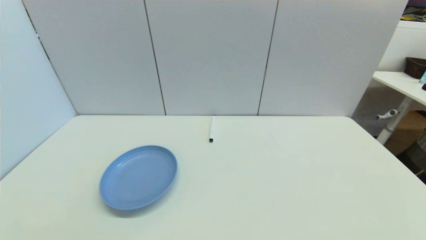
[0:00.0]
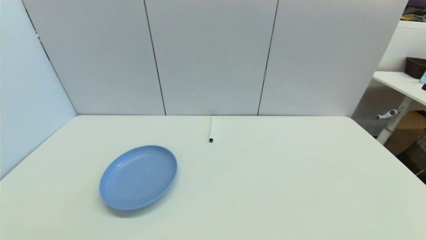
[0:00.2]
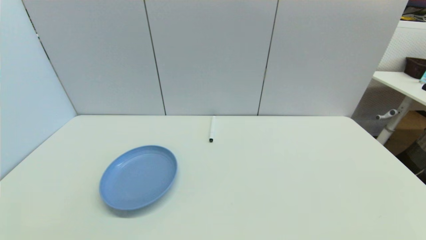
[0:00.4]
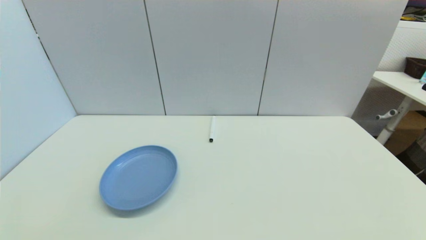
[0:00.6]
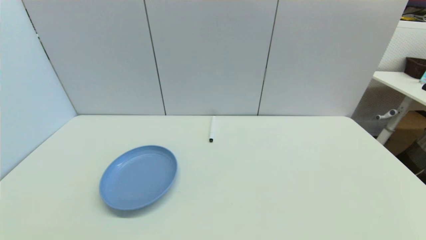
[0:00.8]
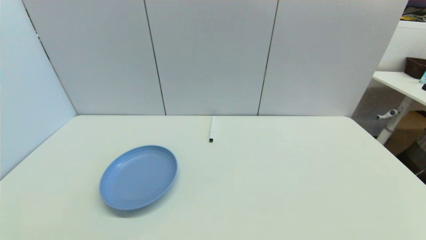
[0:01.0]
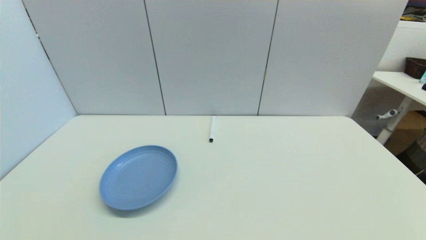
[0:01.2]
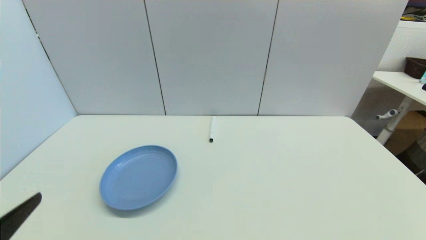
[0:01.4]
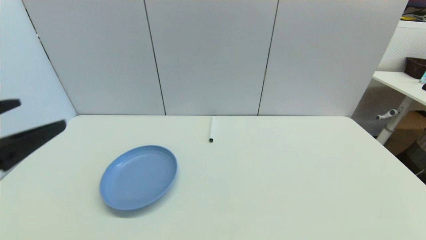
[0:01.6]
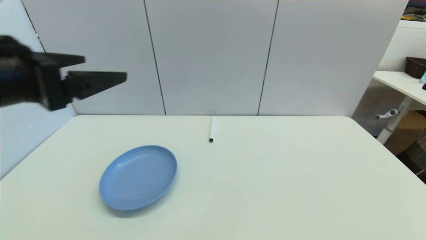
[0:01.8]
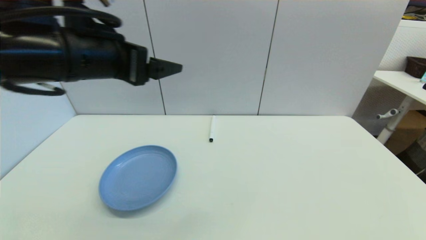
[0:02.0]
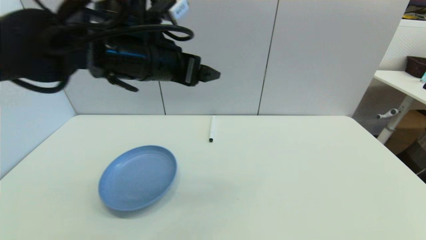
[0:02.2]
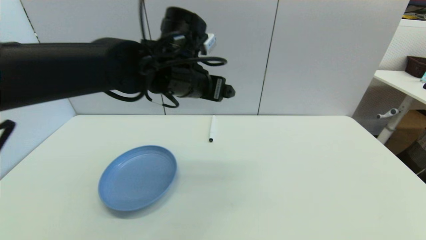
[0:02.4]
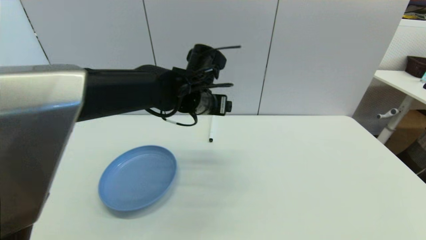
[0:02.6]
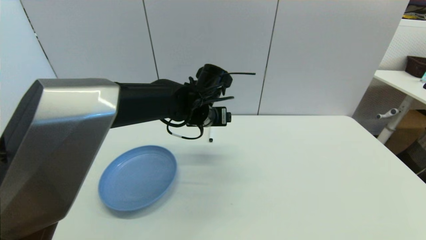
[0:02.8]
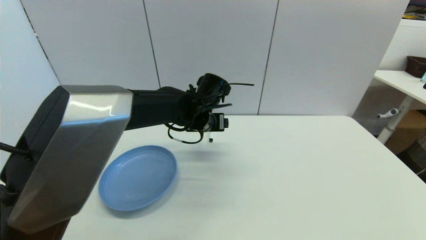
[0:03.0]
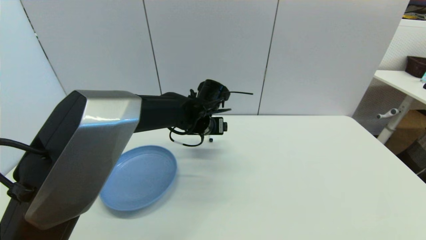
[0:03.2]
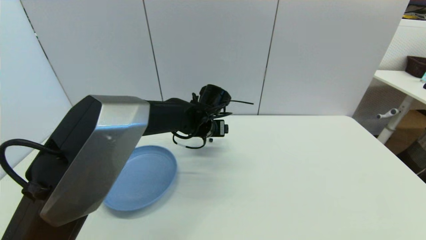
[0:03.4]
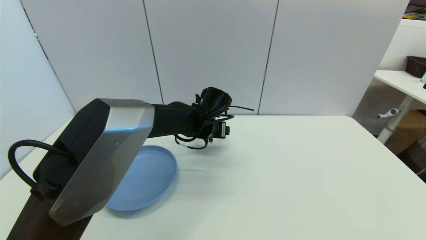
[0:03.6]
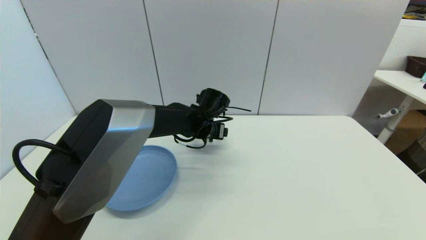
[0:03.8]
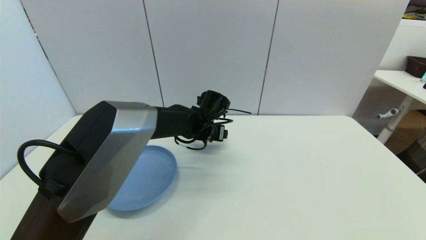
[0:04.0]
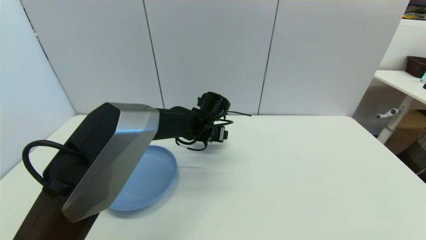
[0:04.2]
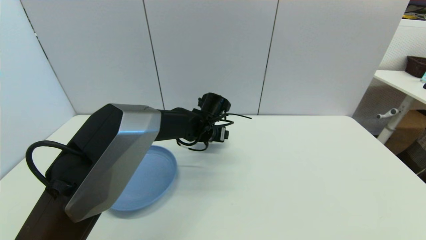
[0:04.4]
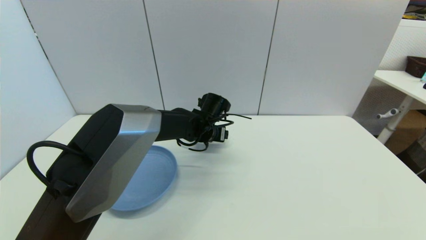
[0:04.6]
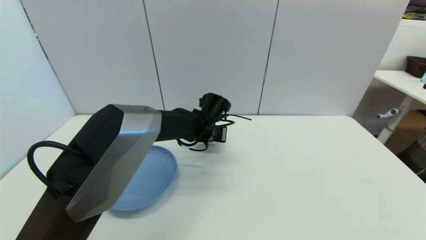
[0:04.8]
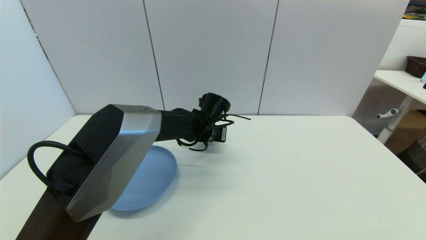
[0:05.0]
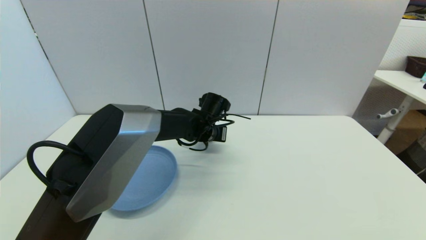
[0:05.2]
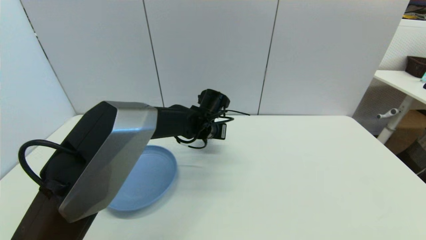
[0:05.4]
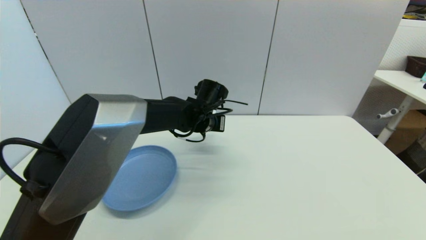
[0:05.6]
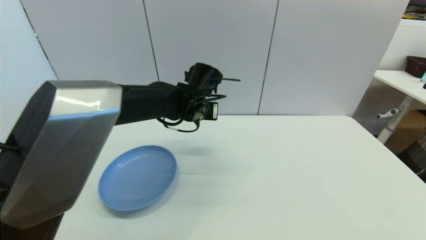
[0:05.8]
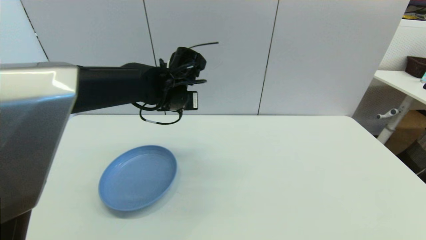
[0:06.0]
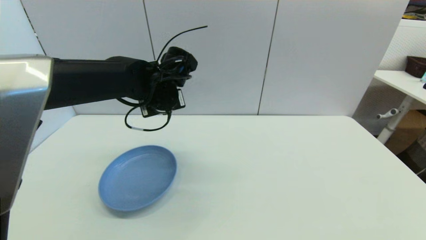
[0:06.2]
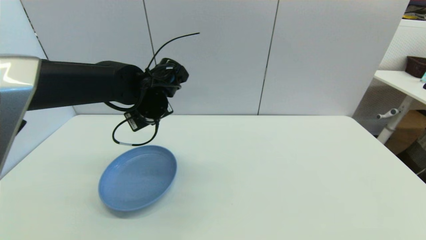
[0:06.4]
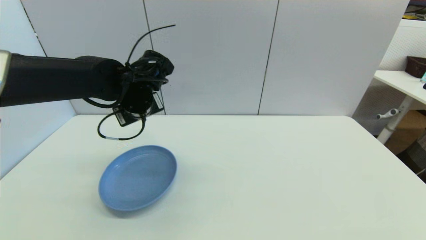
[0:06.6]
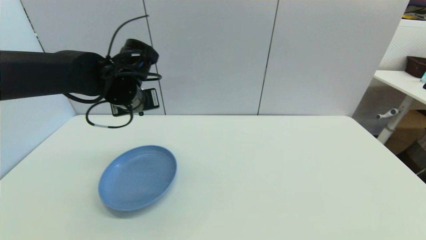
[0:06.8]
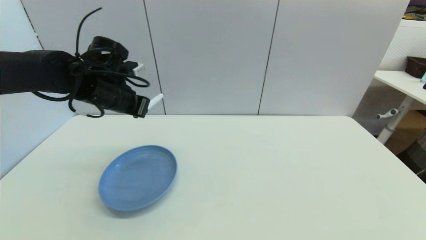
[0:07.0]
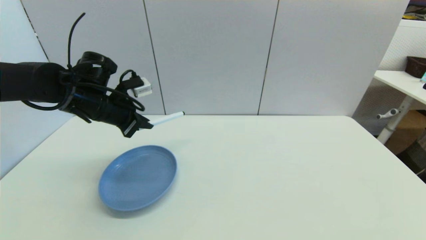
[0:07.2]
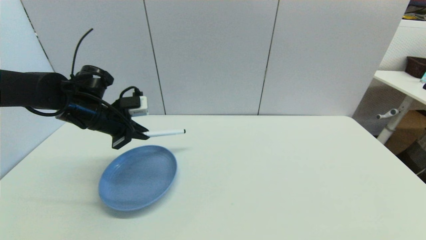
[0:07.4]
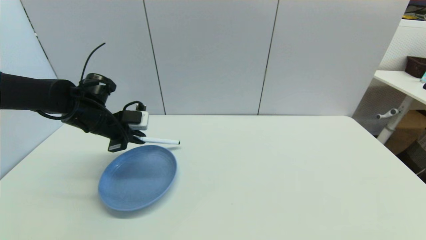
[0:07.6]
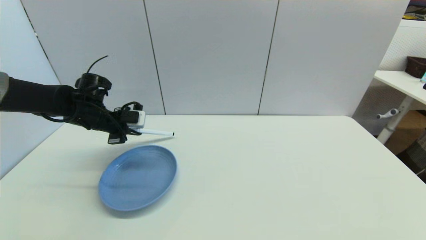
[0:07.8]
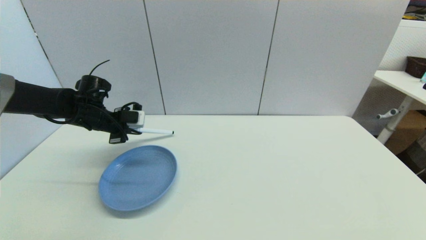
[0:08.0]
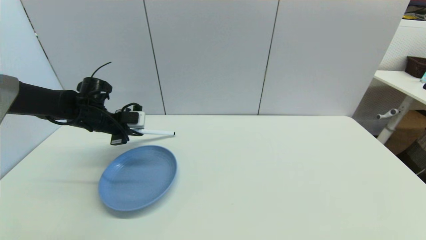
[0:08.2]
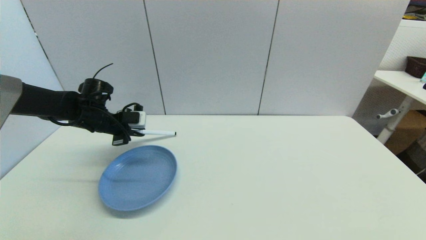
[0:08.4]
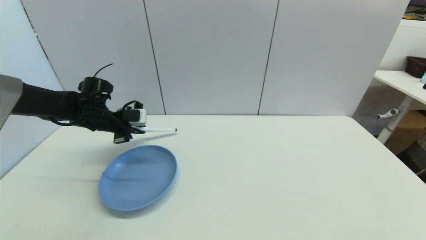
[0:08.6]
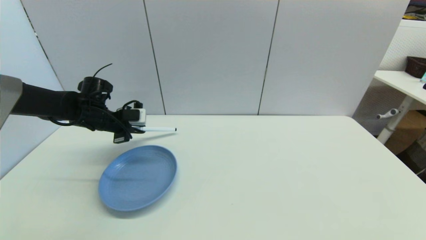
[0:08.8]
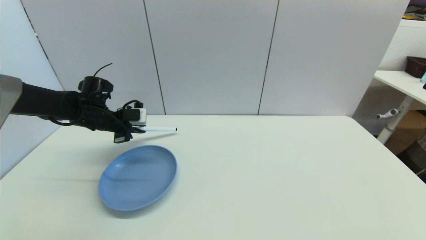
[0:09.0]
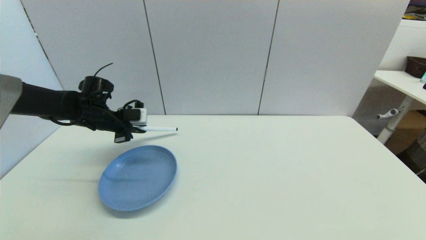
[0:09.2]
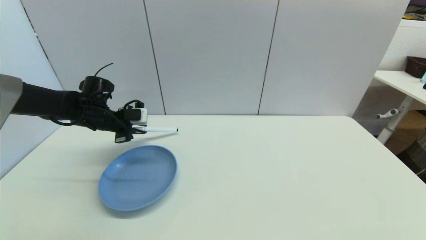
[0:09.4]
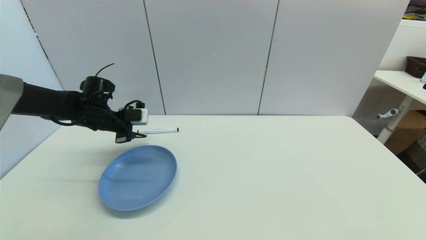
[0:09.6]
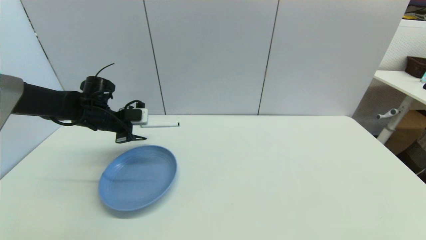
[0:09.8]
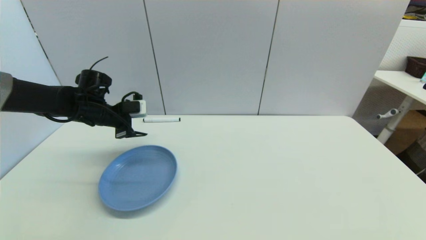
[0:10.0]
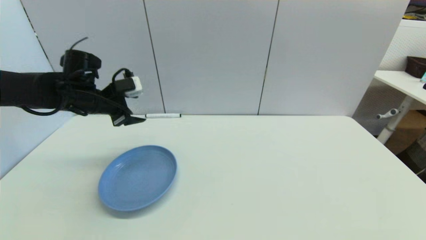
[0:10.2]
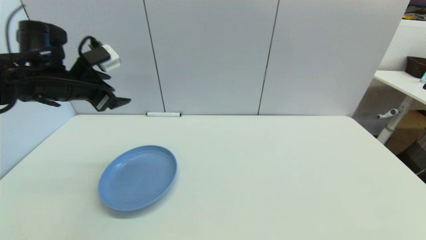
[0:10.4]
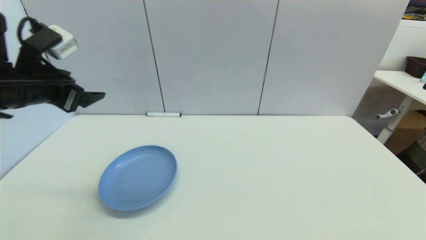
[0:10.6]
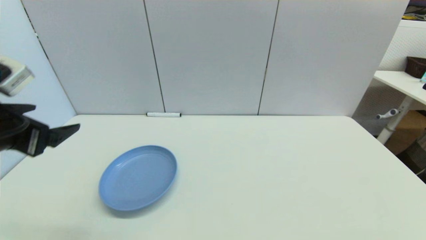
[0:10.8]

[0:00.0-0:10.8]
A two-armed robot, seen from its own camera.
Task of the whole recording: put the black marker in the designated position.
Step, 0:01.4 to 0:05.2: Grasp the Marker pen with left gripper.
Step, 0:05.4 to 0:09.4: Place the Marker pen on the table with left gripper.
0:00.0 to 0:01.6: The left gripper travels upward and forward by roughly 25 cm.
0:01.6 to 0:03.0: The left gripper is displaced forward and to the right by some 40 cm.
0:03.0 to 0:04.6: The left gripper heads downward, covering about 5 cm.
0:04.6 to 0:06.2: The left gripper goes roughly 15 cm upward and to the left, and closes.
0:06.2 to 0:07.8: The left gripper heads to the left, covering about 20 cm.
0:07.8 to 0:09.2: The grippers stay close to where they were, moving slightly.
0:09.2 to 0:10.8: The left gripper goes about 25 cm backward, and opens its fingers.

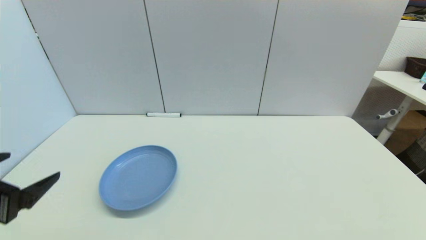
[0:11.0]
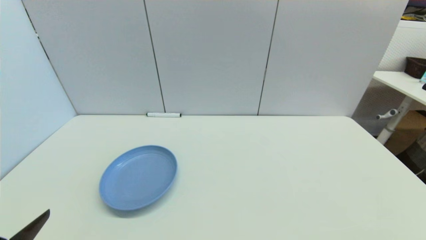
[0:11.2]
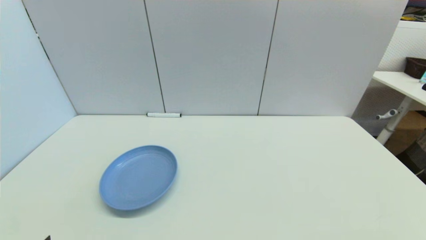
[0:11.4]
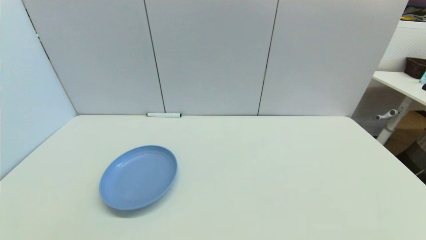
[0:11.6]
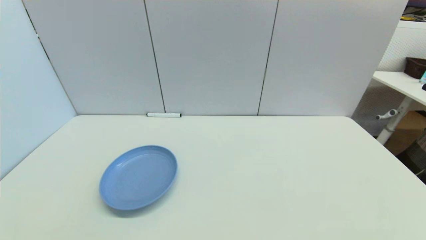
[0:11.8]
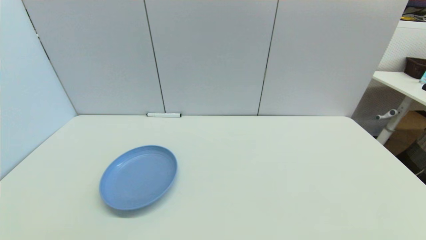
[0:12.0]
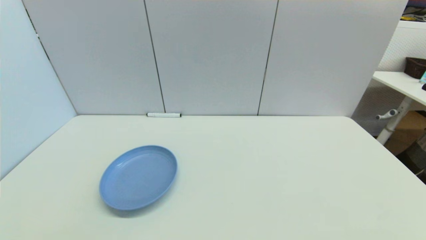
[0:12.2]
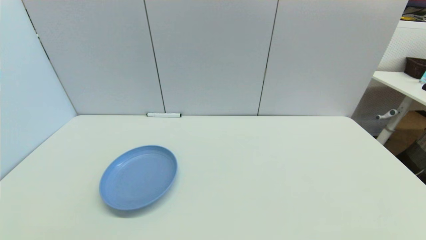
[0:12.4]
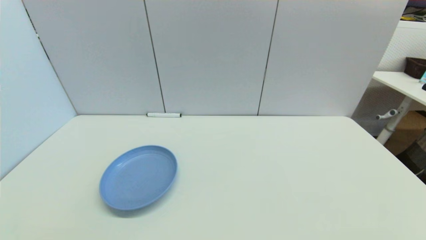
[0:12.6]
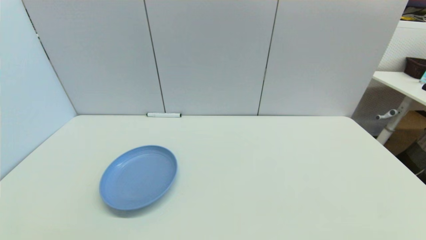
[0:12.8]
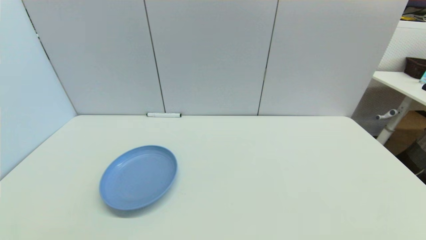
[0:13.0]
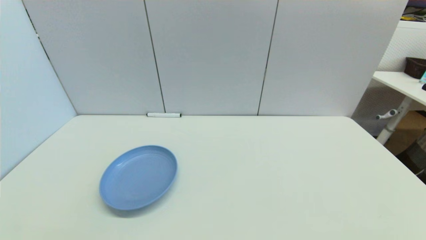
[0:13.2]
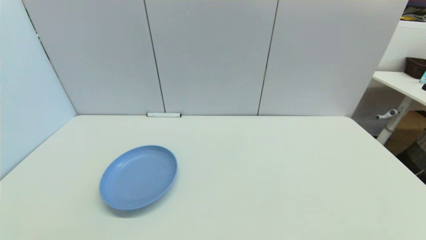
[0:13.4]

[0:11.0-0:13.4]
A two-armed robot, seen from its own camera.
Task of the whole recording: put the black marker in the designated position.
0:11.0 to 0:12.2: The left gripper travels downward and backward by about 15 cm.
0:12.2 to 0:13.4: Both grippers stay put.
